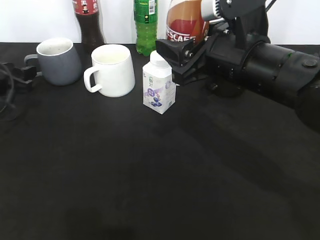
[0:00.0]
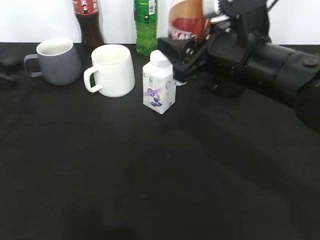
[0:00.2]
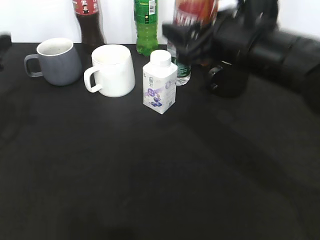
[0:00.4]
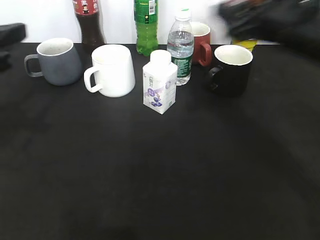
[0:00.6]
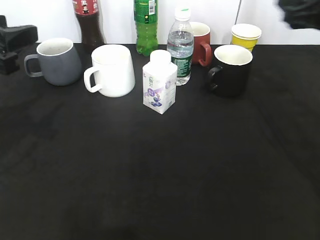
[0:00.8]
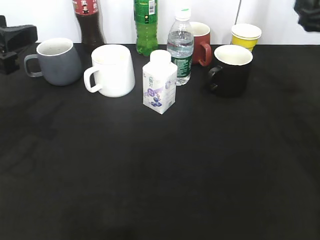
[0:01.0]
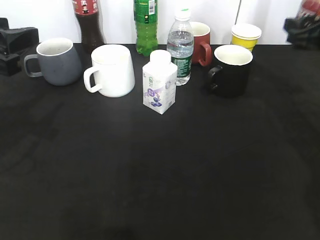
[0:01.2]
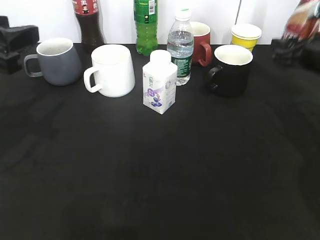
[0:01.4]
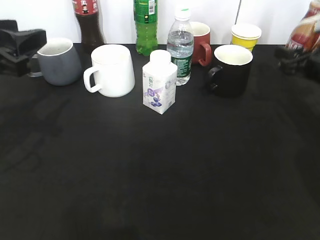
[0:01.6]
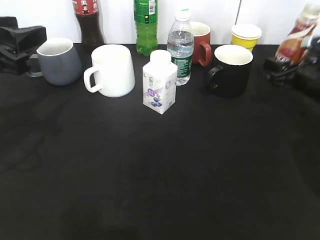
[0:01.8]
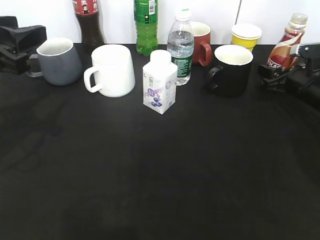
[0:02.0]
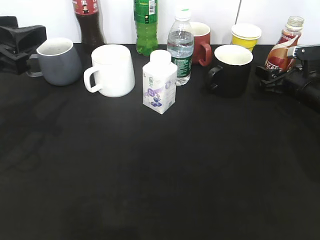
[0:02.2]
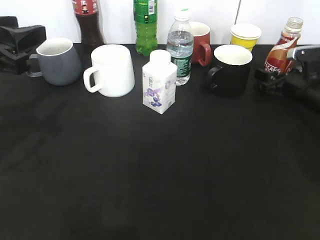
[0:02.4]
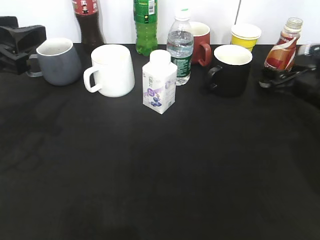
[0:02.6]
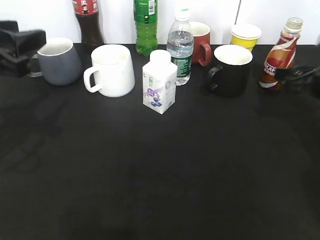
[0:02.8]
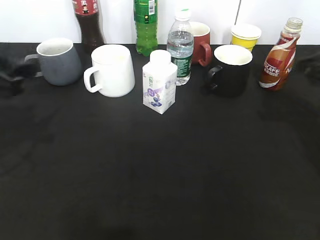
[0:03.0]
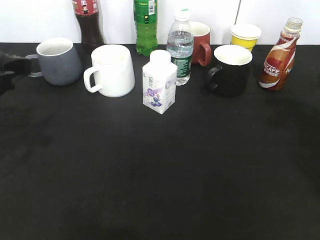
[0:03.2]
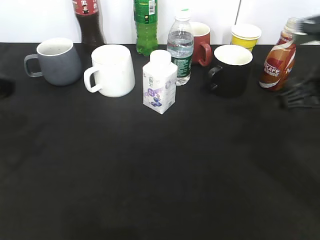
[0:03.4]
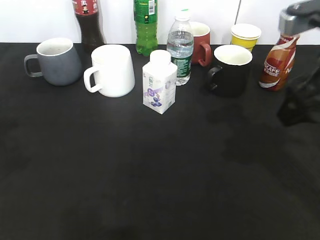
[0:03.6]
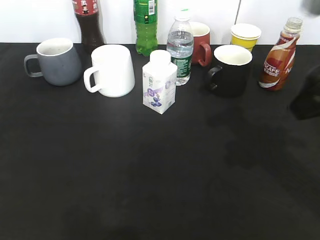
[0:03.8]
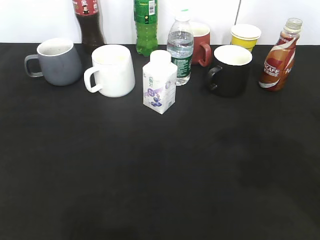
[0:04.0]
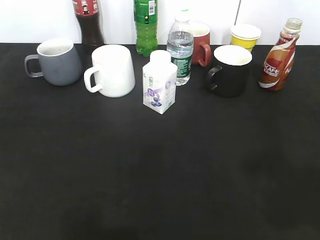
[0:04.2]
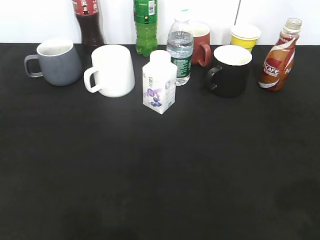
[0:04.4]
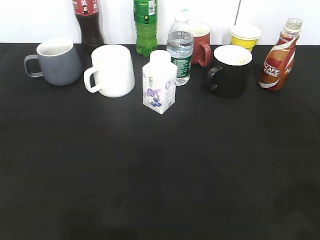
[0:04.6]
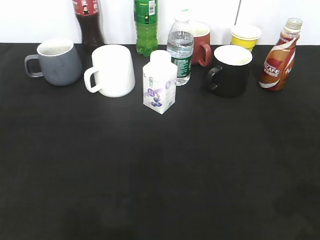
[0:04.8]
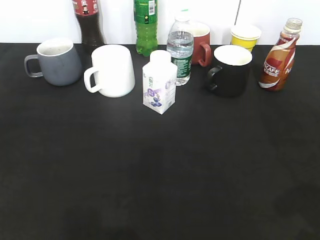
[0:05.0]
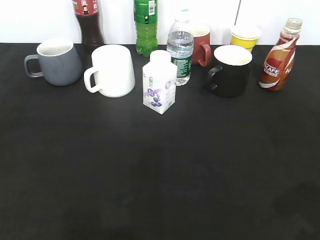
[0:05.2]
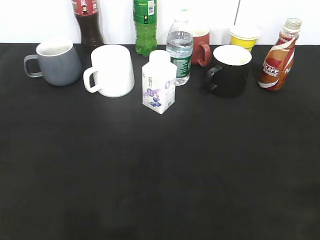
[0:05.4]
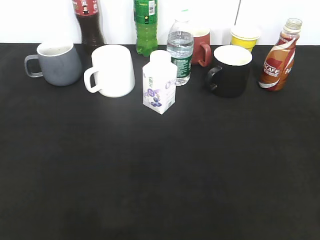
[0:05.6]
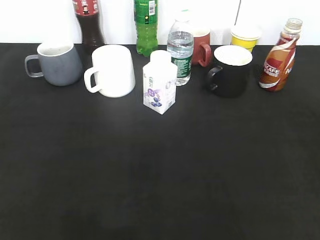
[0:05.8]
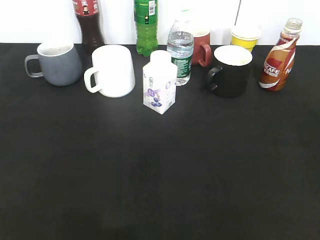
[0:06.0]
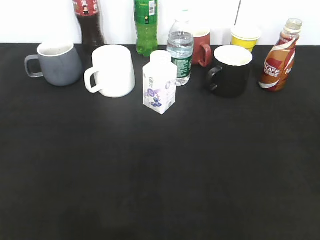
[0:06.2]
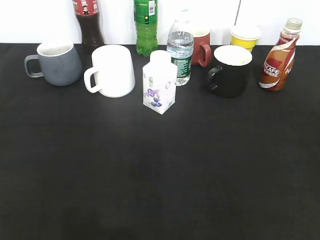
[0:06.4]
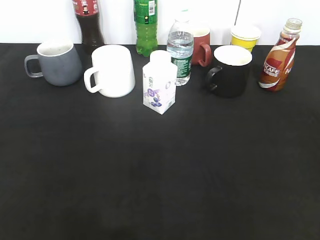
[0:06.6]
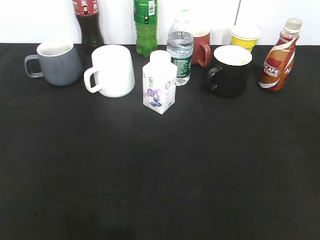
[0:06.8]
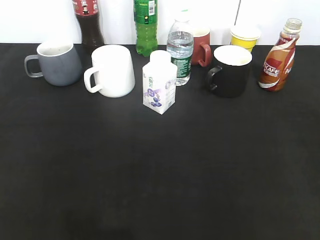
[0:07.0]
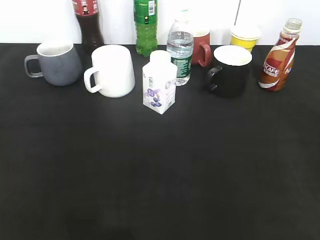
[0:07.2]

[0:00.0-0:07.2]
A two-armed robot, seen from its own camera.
Step, 0:00.4 to 0:03.0: Place the coffee bottle on the table with right gripper.
0:00.0 to 0:01.4: The left gripper is displaced upward, backward and to the right by some 20 cm. The right gripper travels to the right and forward by some 20 cm.
0:01.4 to 0:02.8: The right gripper travels downward and back again, approximately 10 cm each way.
0:02.8 to 0:04.4: The left gripper is displaced backward and to the left by some 20 cm. Meanwhile the right gripper is displaced backward and upward by about 30 cm.
0:04.4 to 0:05.8: The right gripper changes place by roughly 5 cm.
0:05.8 to 0:07.2: Both grippers stay put.
